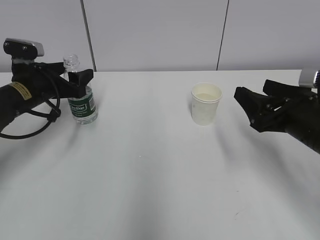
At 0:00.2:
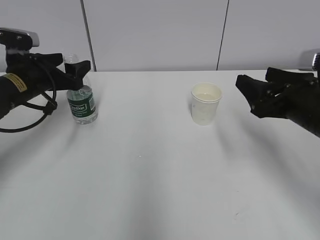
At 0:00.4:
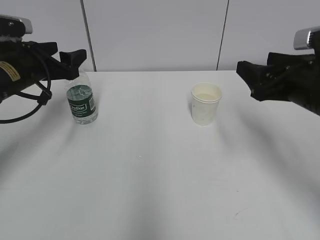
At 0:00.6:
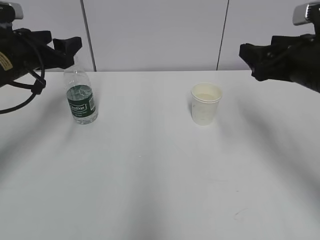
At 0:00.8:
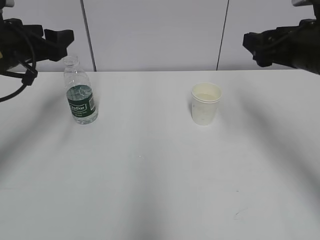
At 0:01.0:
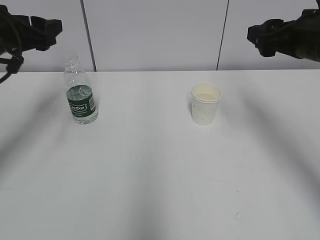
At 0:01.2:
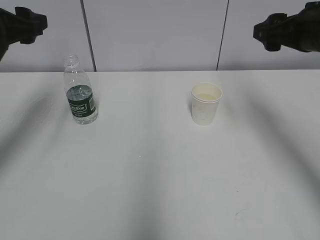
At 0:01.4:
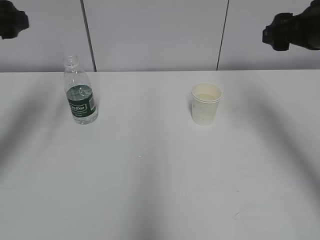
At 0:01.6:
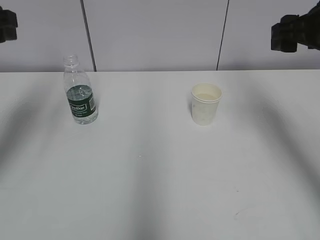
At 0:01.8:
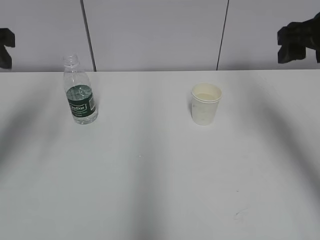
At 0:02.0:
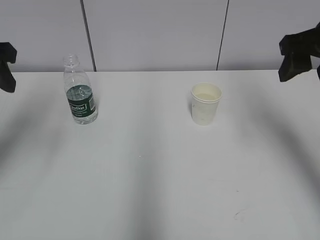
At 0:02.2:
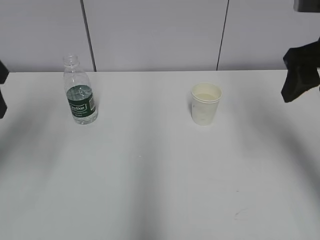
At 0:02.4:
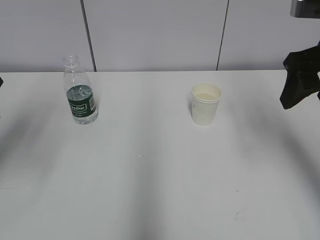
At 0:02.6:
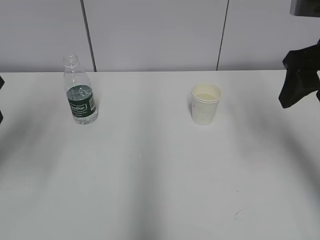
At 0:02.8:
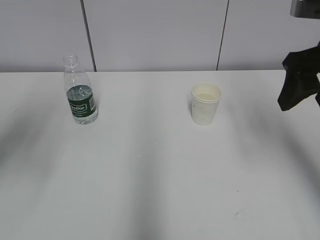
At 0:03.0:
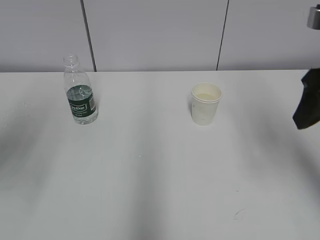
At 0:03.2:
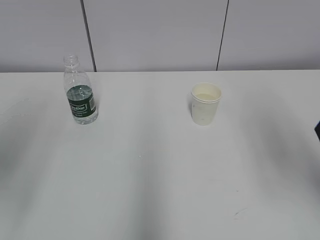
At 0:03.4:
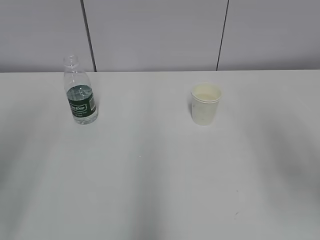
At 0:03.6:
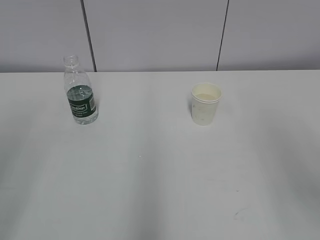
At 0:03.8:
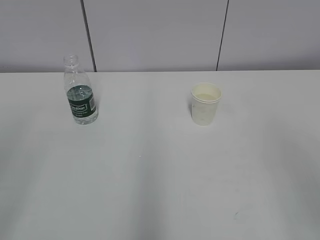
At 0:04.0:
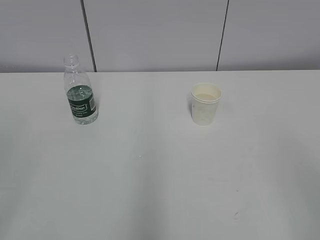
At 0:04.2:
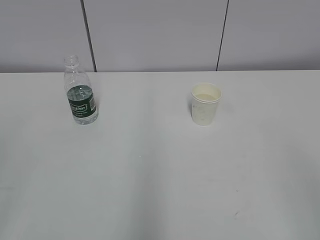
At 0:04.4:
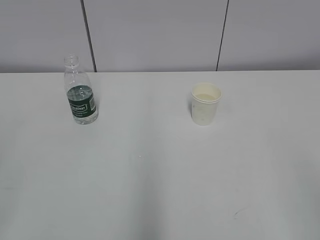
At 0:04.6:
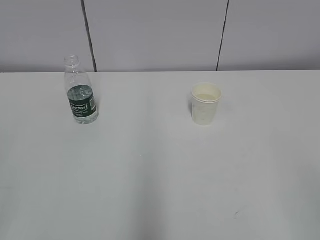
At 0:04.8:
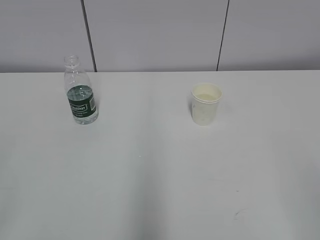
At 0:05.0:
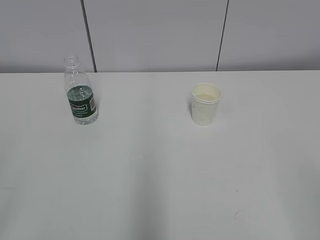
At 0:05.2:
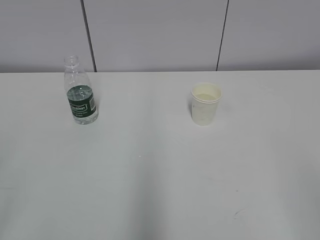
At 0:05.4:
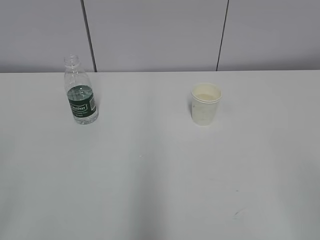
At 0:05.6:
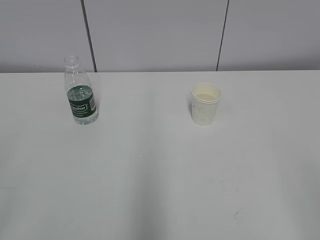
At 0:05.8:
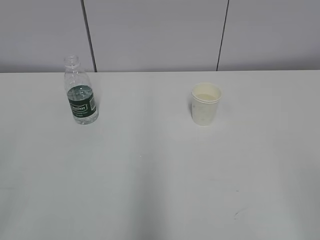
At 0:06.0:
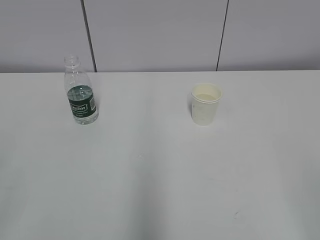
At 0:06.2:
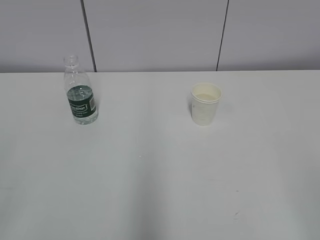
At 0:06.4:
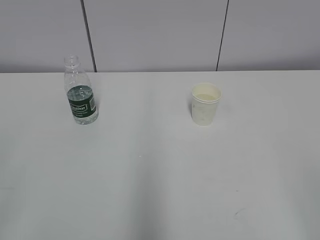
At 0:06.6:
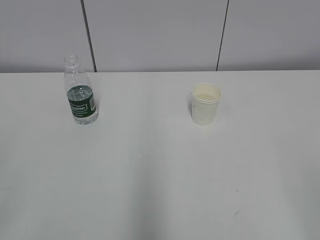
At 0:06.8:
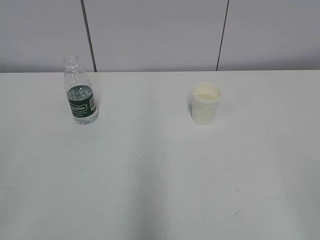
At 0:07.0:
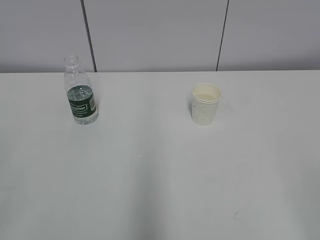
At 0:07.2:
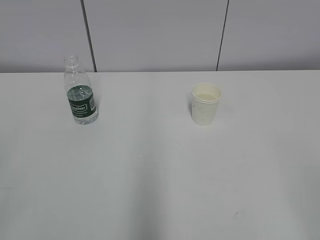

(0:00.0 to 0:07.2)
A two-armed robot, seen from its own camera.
0:00.0 - 0:01.4: The right gripper heads upward and forward, covering approximately 15 cm; the left gripper moves upward, about 15 cm.
0:01.4 - 0:02.8: The left gripper is displaced backward by approximately 10 cm; the right gripper heads backward, covering about 5 cm.
0:02.8 - 0:04.4: The grippers both shift backward by roughly 25 cm.
0:05.8 - 0:07.2: Neither gripper changes place.
